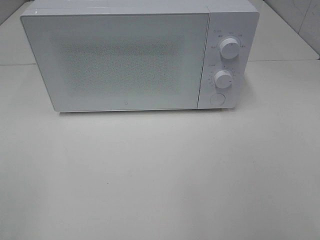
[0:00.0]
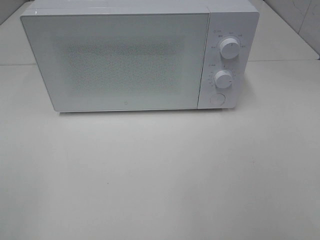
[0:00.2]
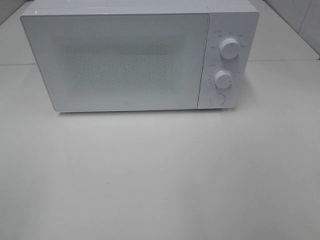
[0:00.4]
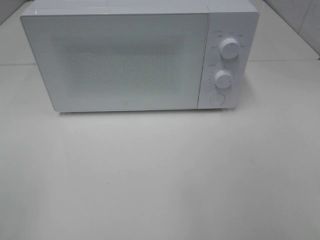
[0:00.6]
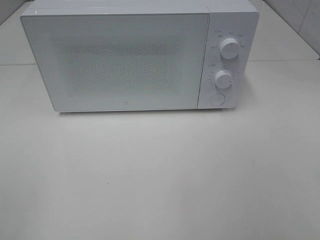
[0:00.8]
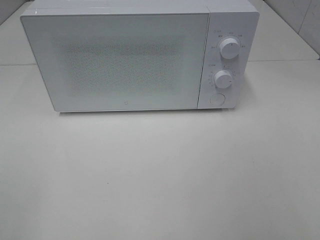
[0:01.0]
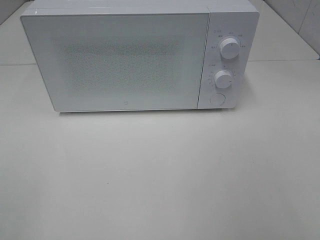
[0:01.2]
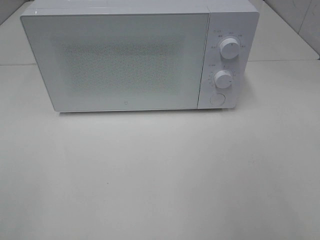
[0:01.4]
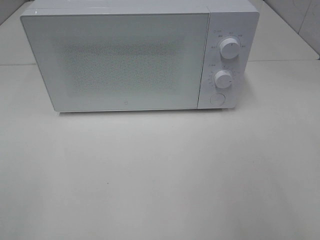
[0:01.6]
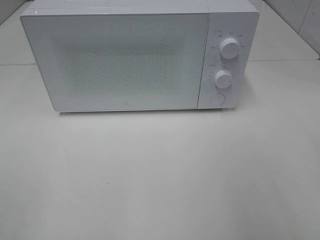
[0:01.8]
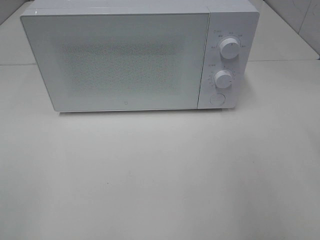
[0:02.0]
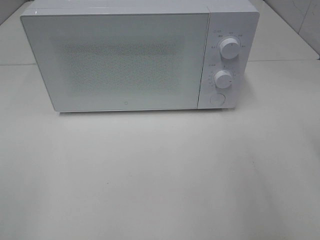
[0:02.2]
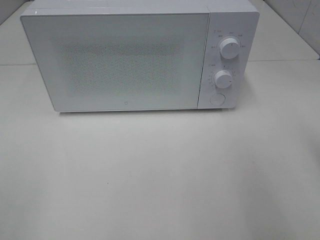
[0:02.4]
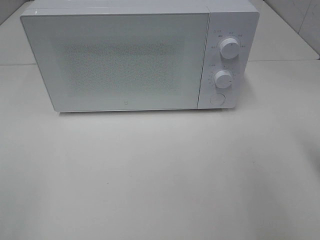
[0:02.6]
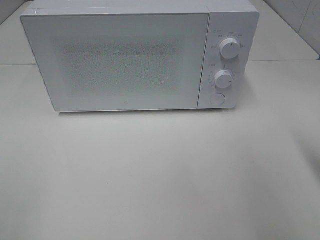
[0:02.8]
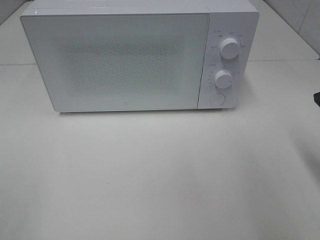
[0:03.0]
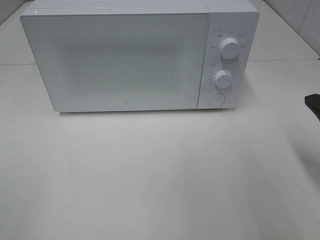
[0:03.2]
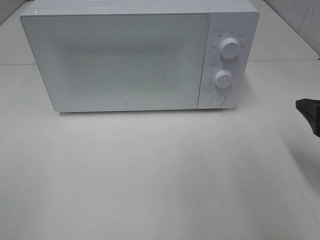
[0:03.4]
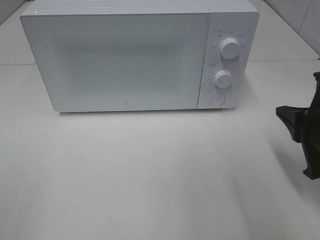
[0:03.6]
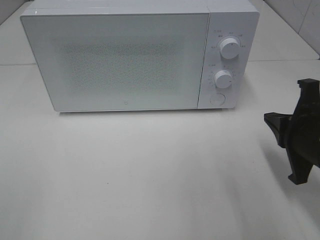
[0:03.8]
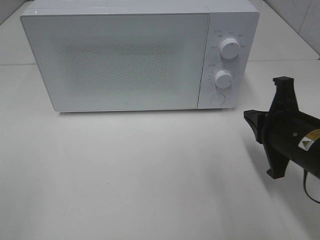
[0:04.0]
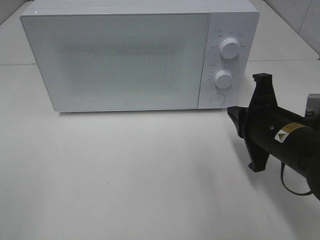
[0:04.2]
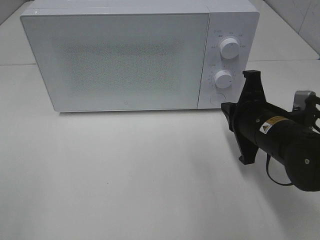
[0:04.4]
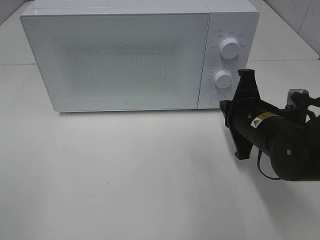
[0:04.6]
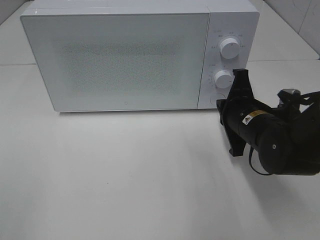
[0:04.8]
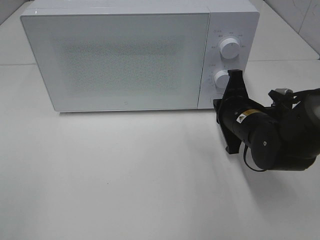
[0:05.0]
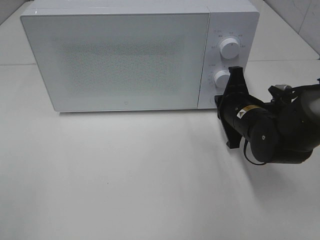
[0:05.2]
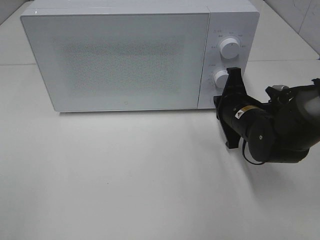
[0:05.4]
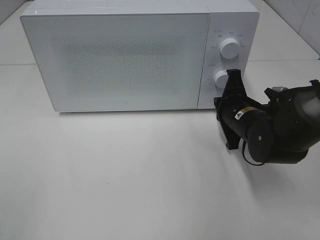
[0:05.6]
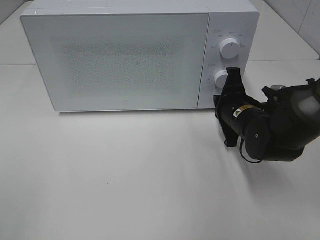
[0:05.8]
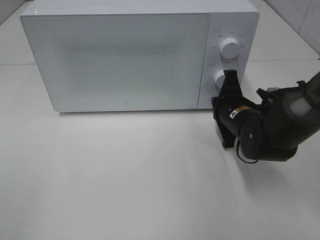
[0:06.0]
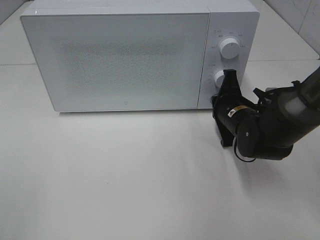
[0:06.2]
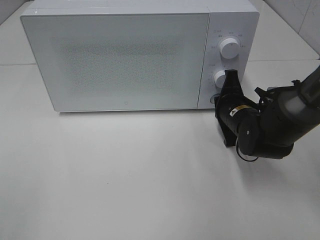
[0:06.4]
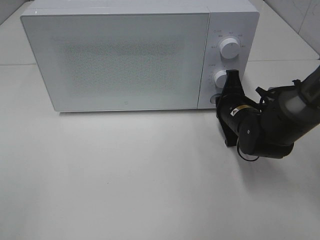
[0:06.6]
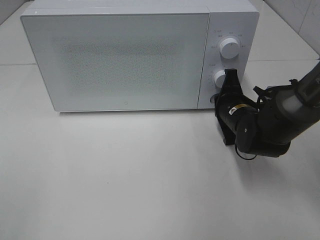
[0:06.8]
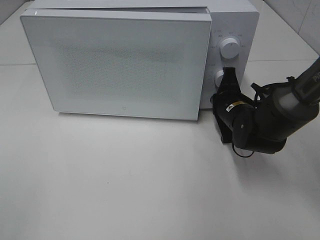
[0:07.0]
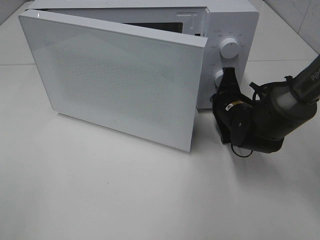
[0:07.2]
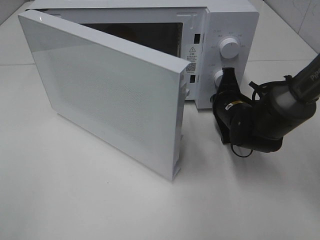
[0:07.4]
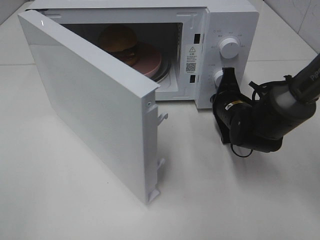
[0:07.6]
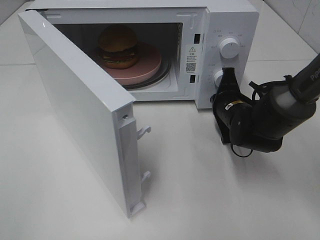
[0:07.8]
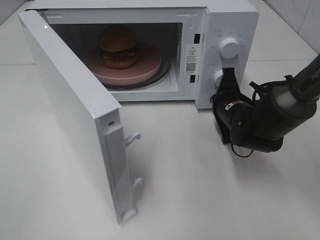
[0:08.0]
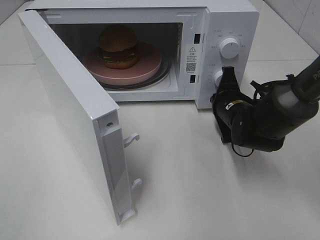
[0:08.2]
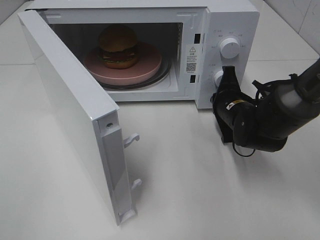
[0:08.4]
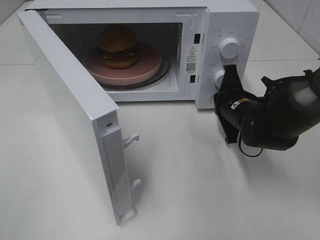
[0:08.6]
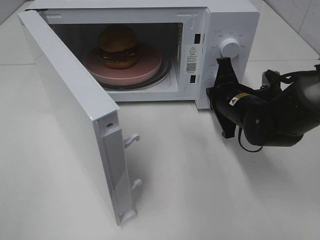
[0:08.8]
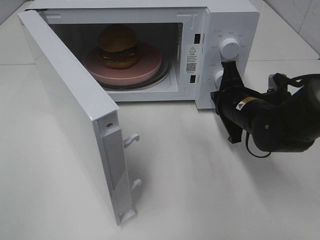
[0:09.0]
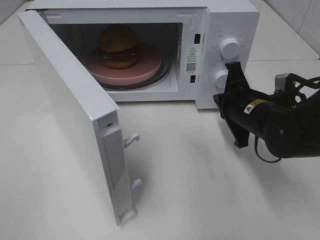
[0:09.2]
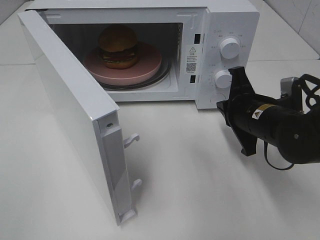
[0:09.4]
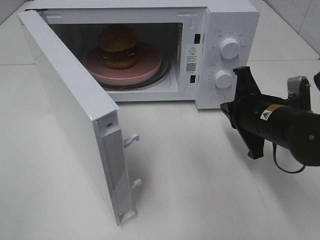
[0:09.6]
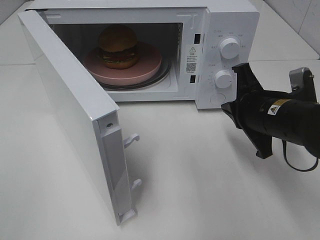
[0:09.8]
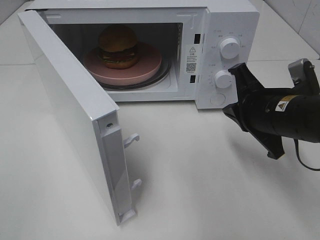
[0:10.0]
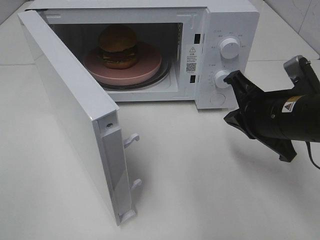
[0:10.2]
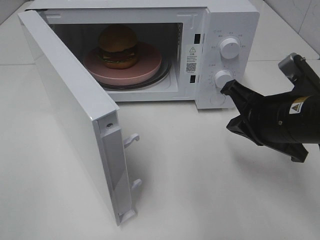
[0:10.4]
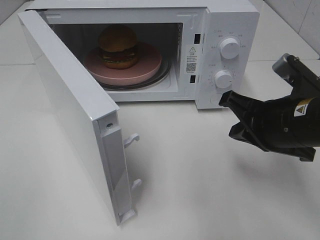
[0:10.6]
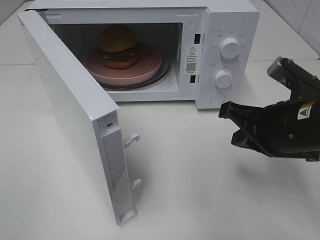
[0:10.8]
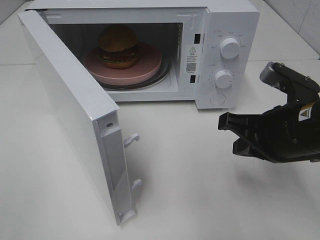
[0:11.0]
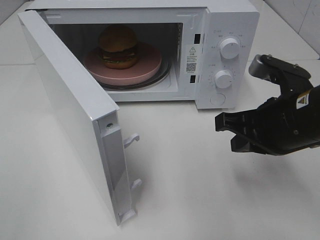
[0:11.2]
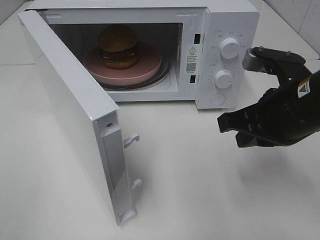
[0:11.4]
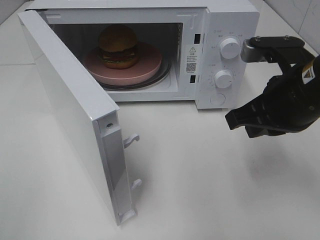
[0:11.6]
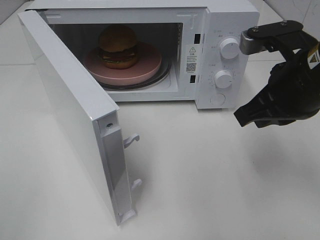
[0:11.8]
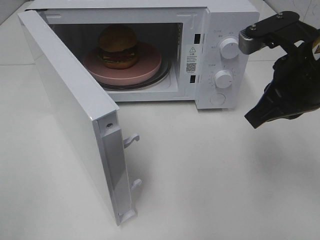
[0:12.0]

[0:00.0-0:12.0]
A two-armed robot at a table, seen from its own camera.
Task of the whole recording: Heat the burger.
Step, 0:00.0 to 0:08.6: Right hand: press the switch.
0:03.0 to 0:04.4: The right gripper heads to the left, forward and downward, covering roughly 15 cm.
0:04.4 to 0:06.0: The right gripper shifts roughly 10 cm forward.
0:09.0 to 0:10.4: The right gripper goes roughly 10 cm backward and upward.
0:10.4 to 0:12.0: The right gripper is displaced upward by approximately 10 cm.

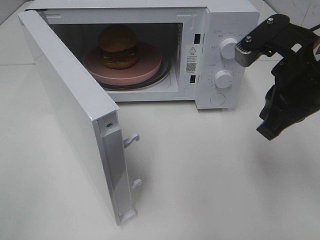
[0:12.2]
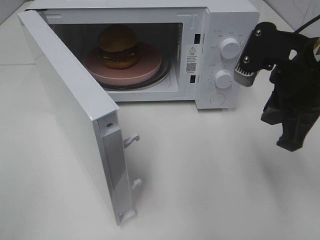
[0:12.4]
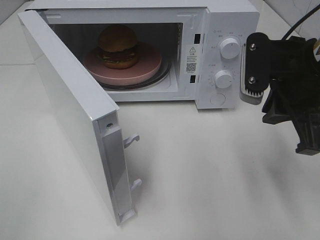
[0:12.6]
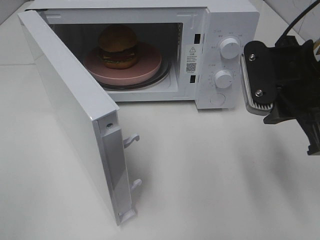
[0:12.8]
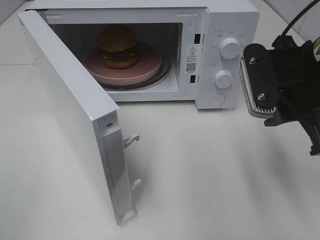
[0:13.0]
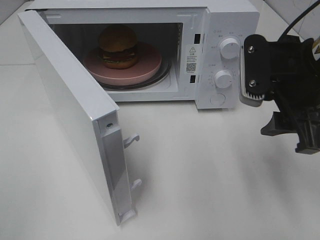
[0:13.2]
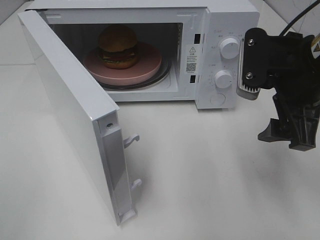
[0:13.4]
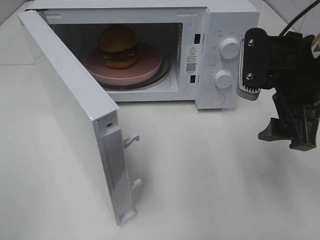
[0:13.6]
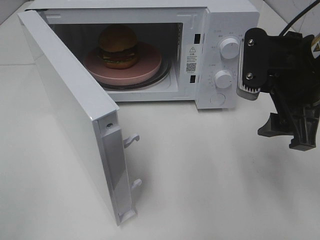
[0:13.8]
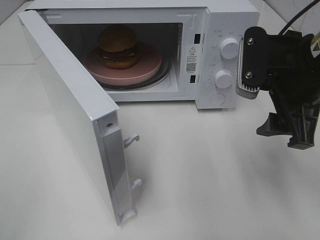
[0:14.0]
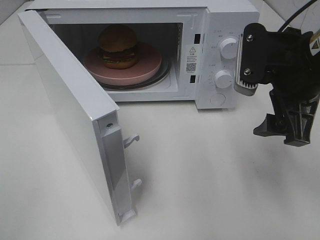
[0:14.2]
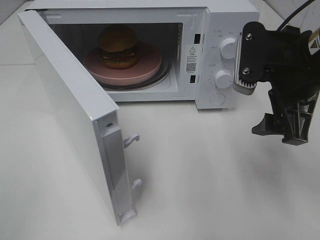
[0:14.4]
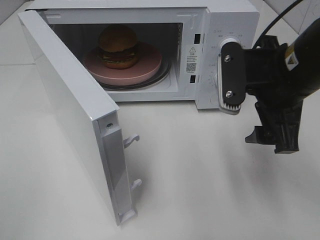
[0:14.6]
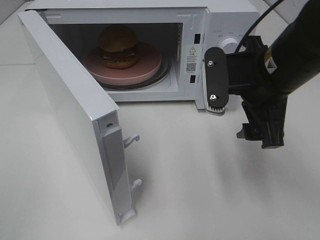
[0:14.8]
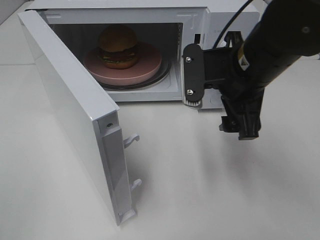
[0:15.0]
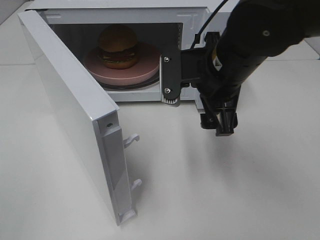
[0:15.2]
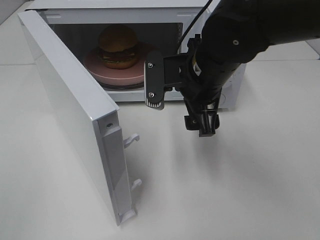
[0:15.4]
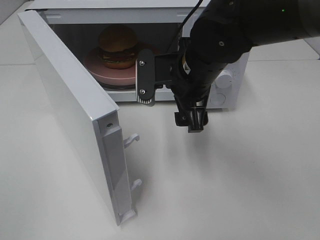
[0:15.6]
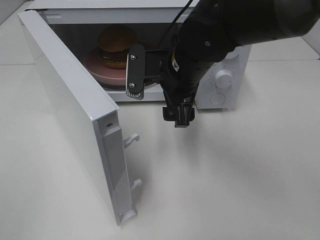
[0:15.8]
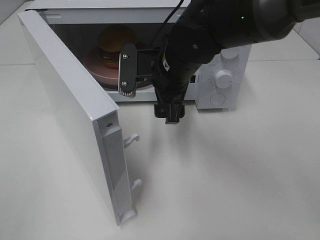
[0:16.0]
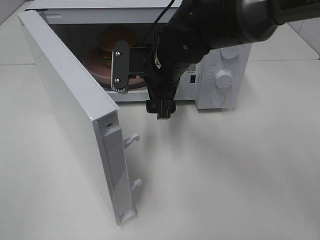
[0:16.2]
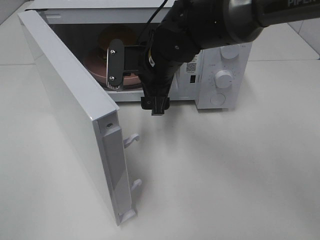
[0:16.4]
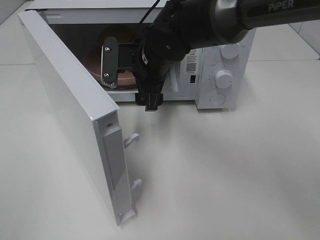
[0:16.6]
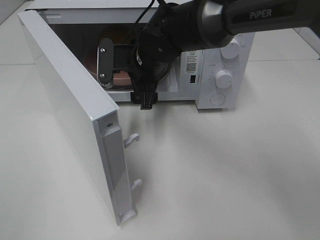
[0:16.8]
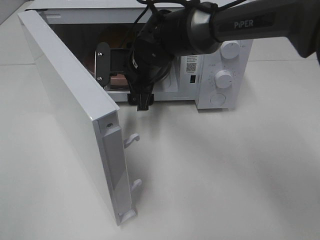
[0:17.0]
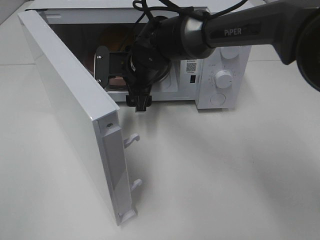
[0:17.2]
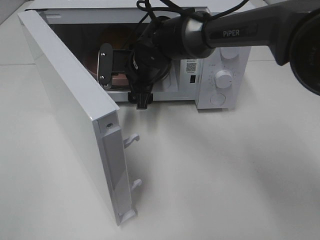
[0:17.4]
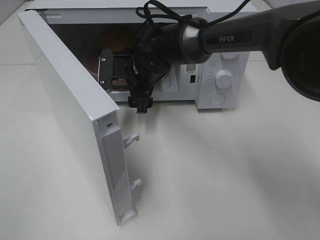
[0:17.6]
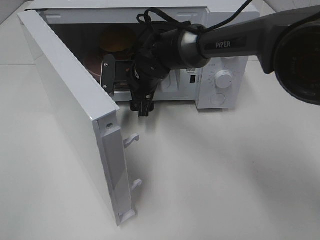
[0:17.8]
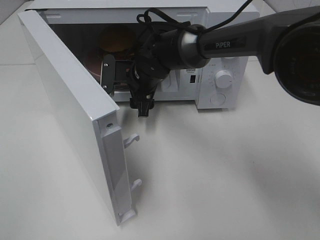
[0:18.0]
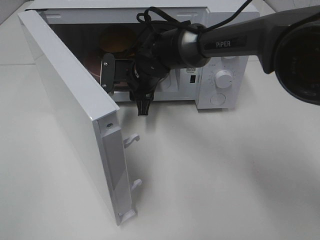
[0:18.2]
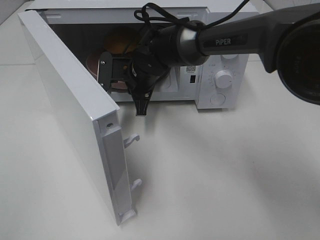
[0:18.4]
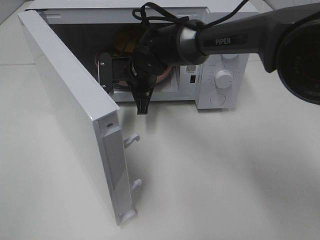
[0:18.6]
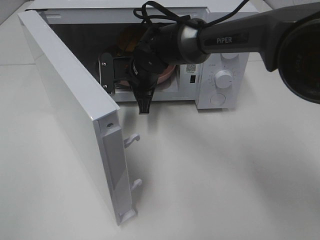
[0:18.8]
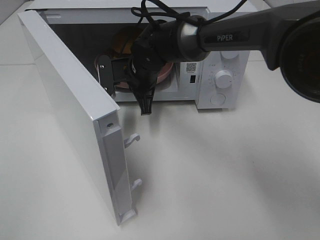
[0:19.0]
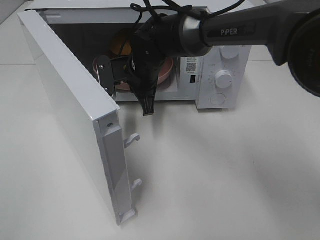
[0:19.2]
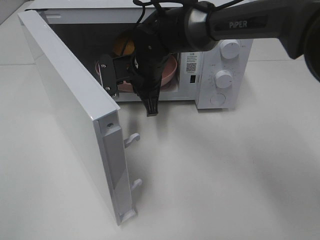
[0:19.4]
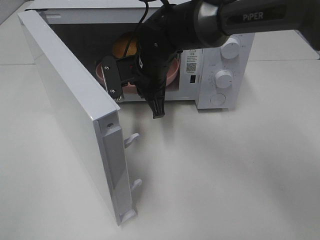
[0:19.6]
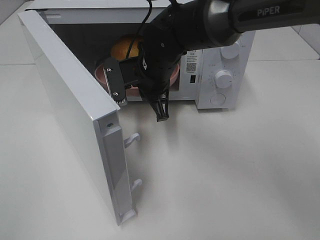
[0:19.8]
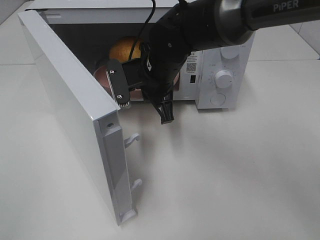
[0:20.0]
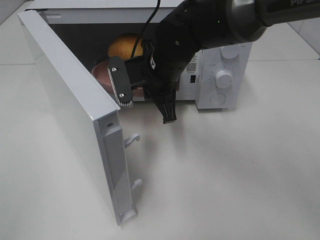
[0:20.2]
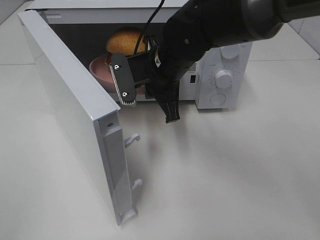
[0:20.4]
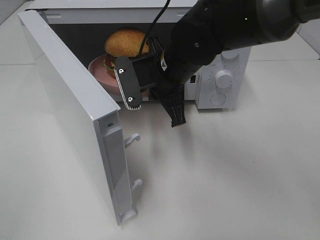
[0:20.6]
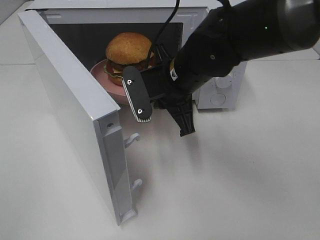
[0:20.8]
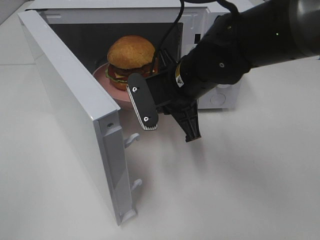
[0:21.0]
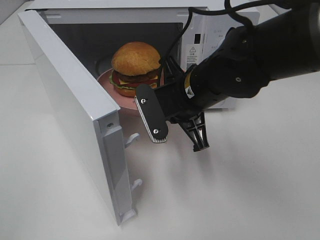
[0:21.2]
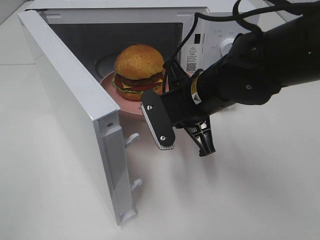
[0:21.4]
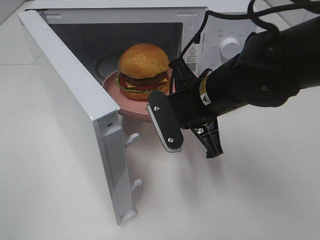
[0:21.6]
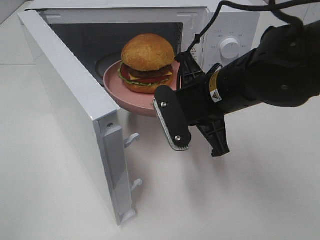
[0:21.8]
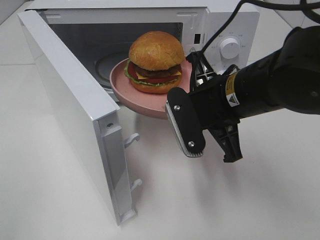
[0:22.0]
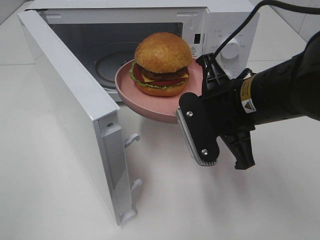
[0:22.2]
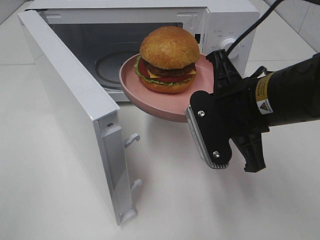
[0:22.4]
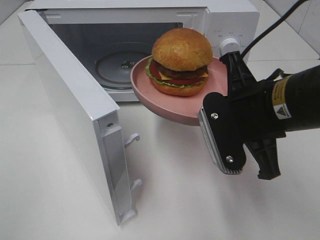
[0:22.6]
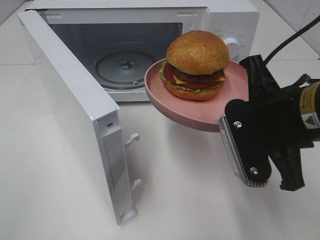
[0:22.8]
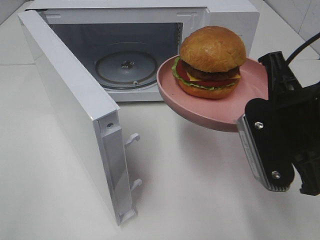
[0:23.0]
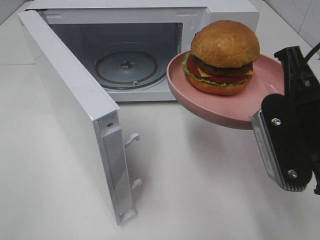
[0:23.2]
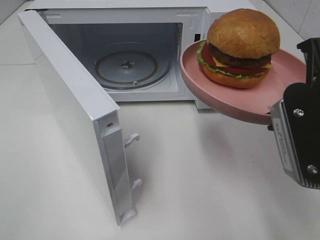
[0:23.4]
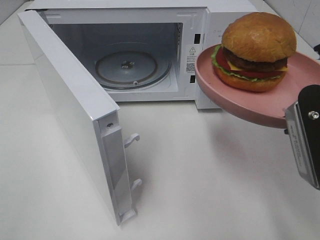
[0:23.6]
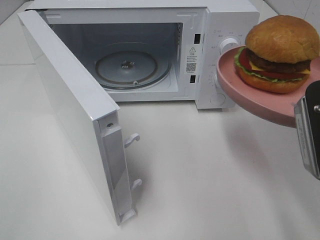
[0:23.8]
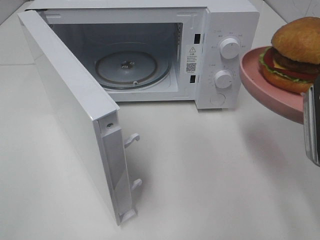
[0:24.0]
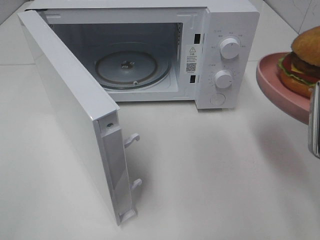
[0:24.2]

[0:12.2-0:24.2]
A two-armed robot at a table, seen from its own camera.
Task of the whole recording: Heat the burger.
Step, 0:12.2 to 0:18.4: Right hand: grab the plate with the hamburger.
0:12.2 to 0:13.8: The right gripper opens up.
0:13.8 to 0:15.2: The right gripper is displaced to the left by about 10 cm.
0:15.2 to 0:16.6: The right gripper shifts about 15 cm forward and to the left.
0:16.6 to 0:18.2: The right gripper moves downward, some 5 cm, and closes.
0:18.2 to 0:19.8: The right gripper ends up roughly 5 cm from where it was, and closes up.
0:19.8 to 0:21.2: The right gripper shifts about 10 cm backward and to the right.
0:21.2 to 0:22.6: The right gripper is displaced backward and to the right by approximately 10 cm.
0:22.6 to 0:24.2: The right gripper travels to the right and backward by about 10 cm.
